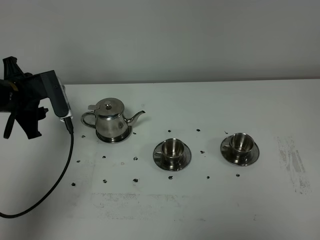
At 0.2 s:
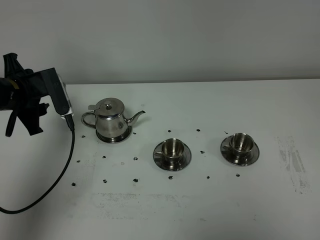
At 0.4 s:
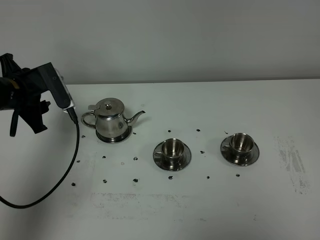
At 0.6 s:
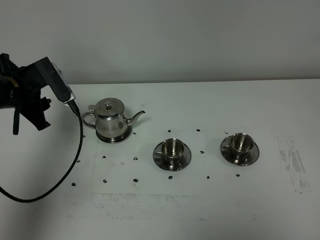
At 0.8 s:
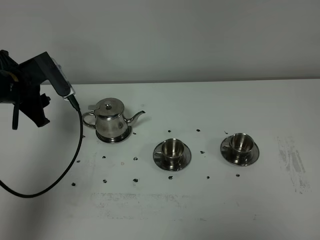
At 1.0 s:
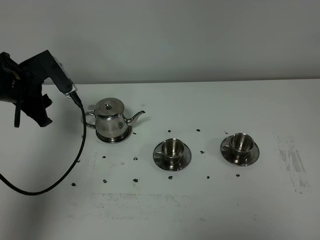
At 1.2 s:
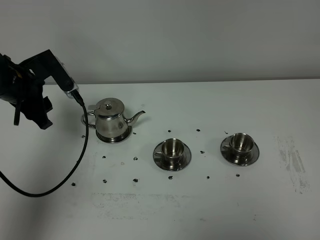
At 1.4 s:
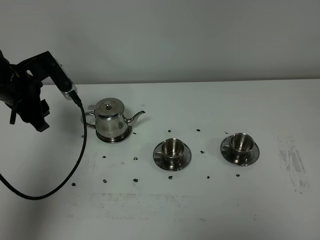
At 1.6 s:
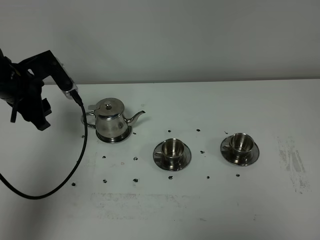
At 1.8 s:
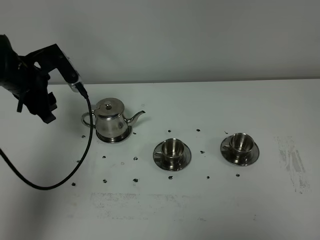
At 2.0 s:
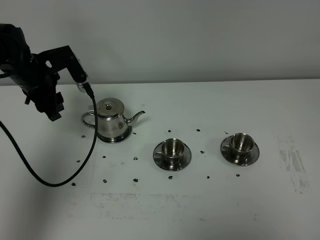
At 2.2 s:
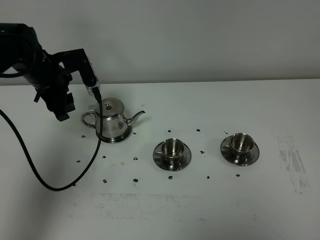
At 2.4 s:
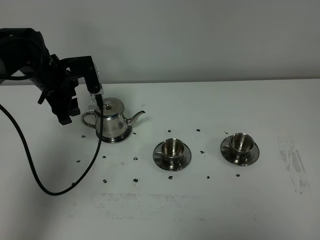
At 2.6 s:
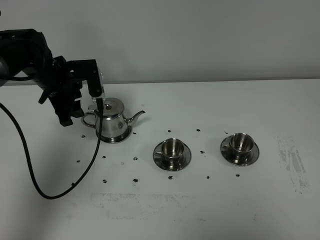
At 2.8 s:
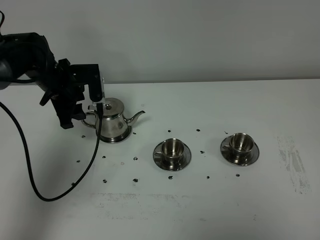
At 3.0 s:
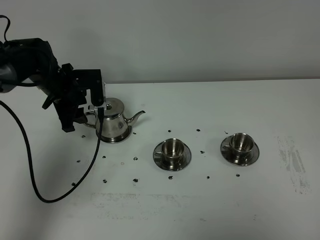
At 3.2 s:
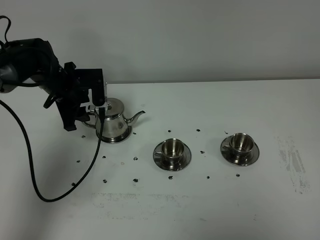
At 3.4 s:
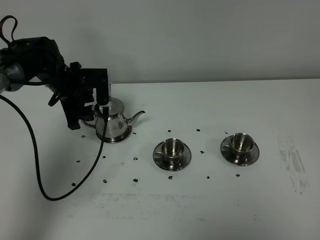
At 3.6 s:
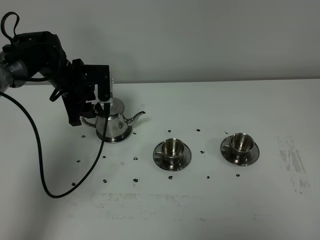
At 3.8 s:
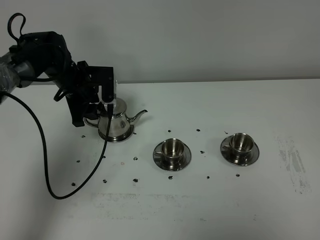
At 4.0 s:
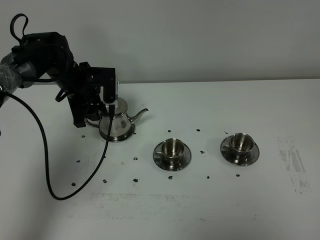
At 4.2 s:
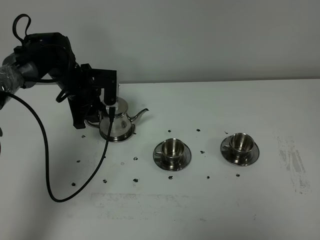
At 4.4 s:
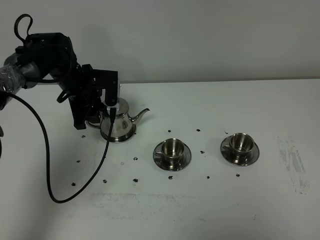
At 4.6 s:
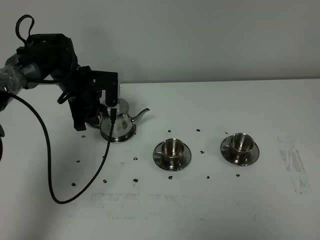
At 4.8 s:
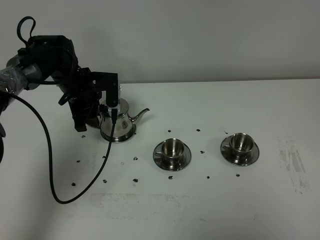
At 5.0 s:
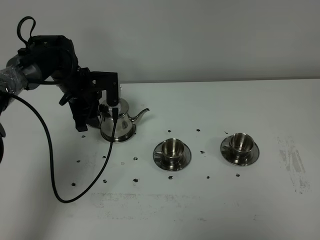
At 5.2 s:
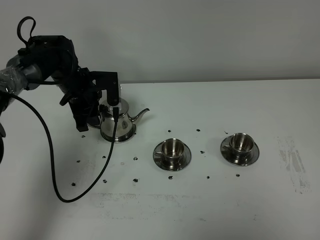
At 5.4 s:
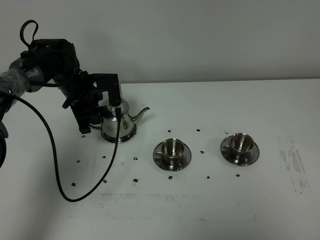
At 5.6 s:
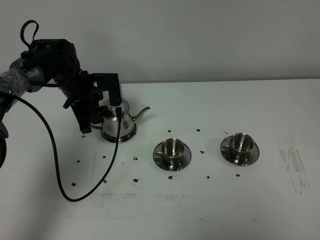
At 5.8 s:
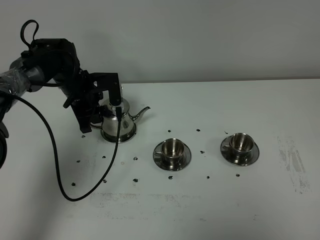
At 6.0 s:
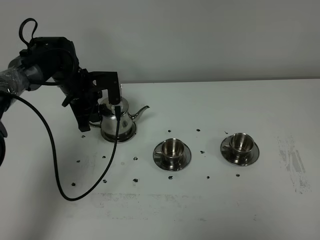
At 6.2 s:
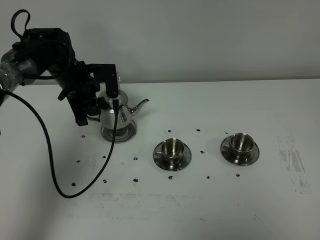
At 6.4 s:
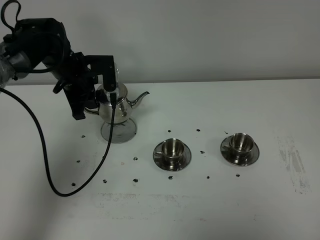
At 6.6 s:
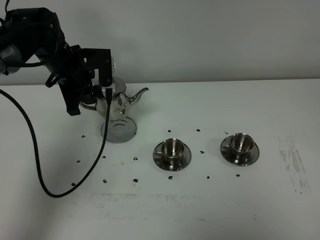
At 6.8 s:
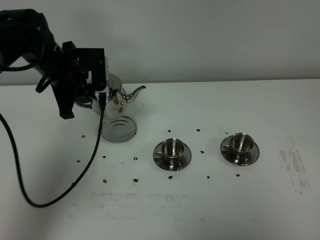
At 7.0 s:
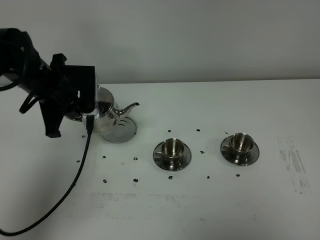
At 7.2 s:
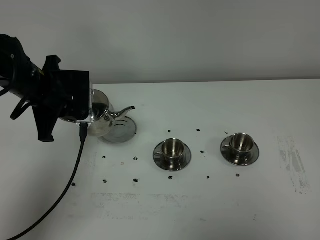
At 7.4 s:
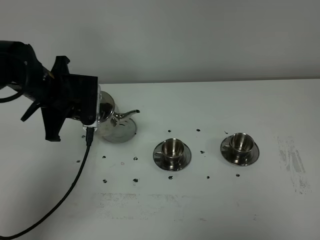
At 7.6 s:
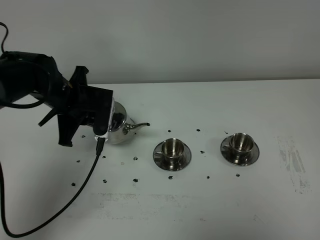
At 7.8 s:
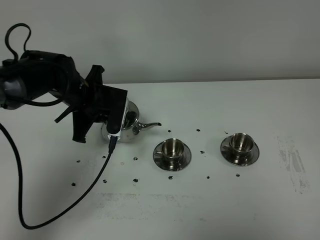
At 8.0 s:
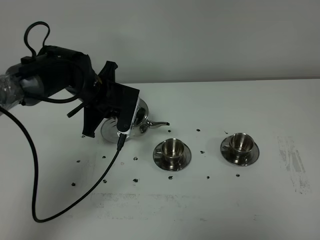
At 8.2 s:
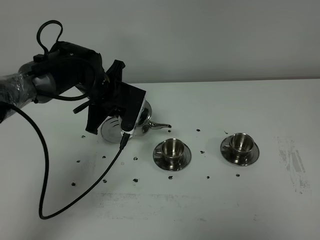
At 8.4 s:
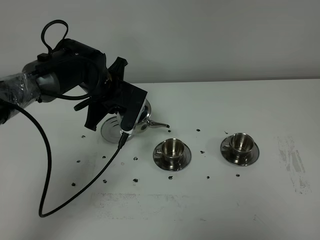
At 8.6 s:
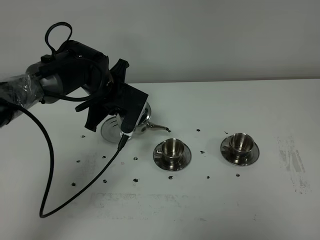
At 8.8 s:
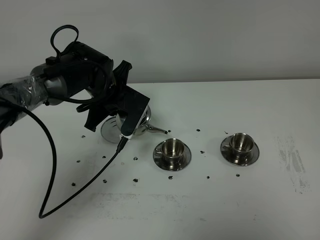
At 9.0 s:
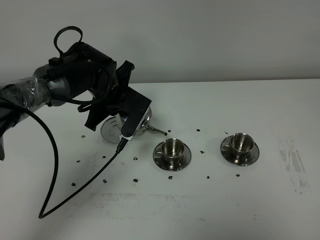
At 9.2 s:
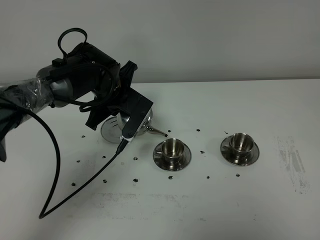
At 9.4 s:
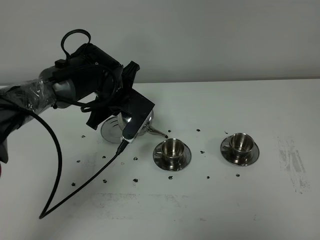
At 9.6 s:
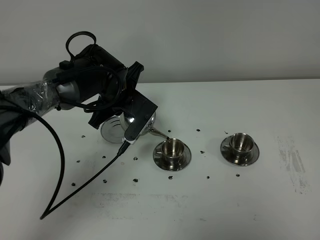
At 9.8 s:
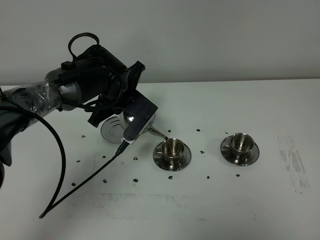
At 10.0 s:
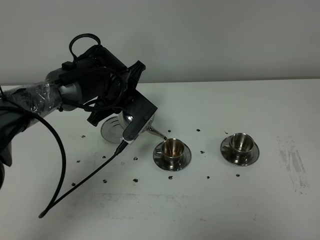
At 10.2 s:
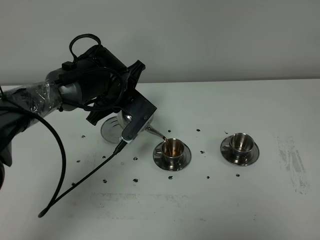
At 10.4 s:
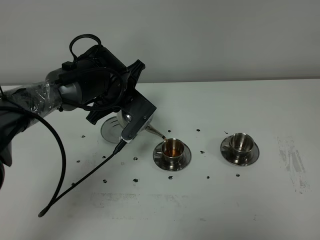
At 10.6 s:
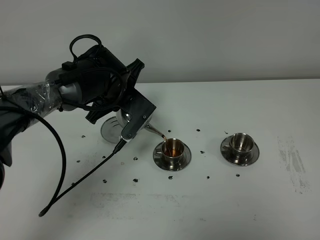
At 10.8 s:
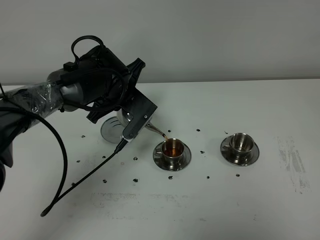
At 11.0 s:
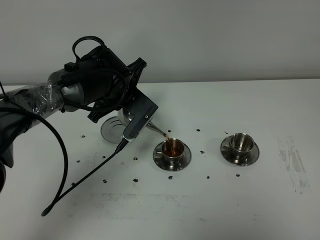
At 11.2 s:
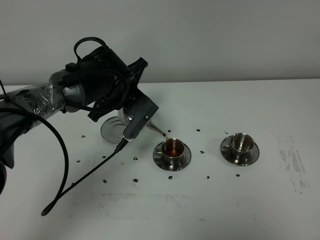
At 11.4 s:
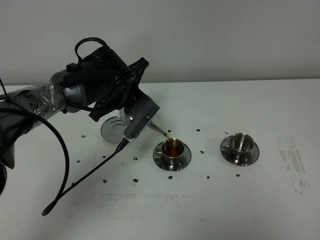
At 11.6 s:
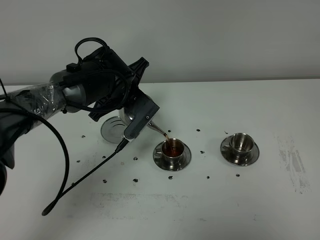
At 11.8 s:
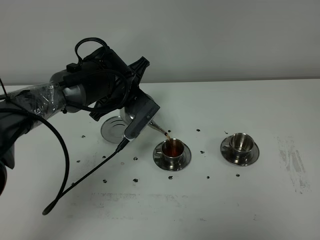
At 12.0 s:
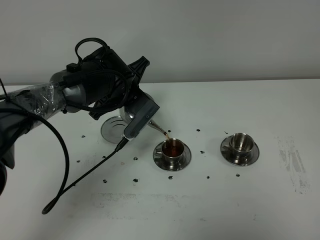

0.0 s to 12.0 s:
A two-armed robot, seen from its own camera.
Task of the whole recording: grasp the stainless steel teapot and pour the tea into the two stainless steel teacups one by one, put the stainless steel teapot back in its original place.
Step, 0.0 to 6.0 s: Pick up the teapot with the left gripper.
1.6 to 3.0 s: The left gripper travels forward and downward by approximately 10 cm.
3.0 to 4.4 s: There are only small adjustments of the grippers.
4.4 to 6.0 s: The left gripper closes its fingers.
6.0 to 7.6 s: The left gripper is displaced backward by roughly 10 cm.
7.6 to 9.0 s: The left gripper goes about 5 cm to the right.
9.0 to 10.4 s: There are only small adjustments of the grippers.
10.4 to 12.0 s: Neither gripper changes place.

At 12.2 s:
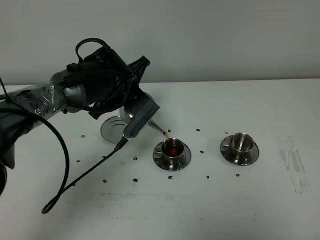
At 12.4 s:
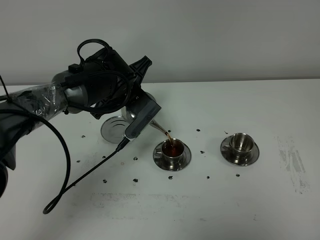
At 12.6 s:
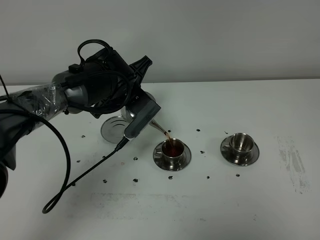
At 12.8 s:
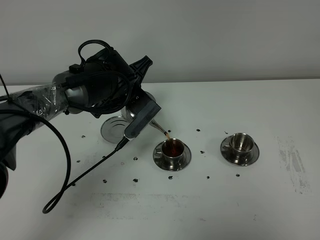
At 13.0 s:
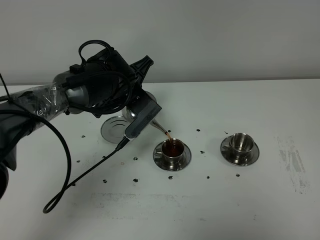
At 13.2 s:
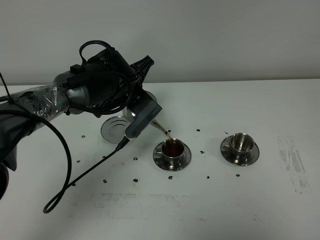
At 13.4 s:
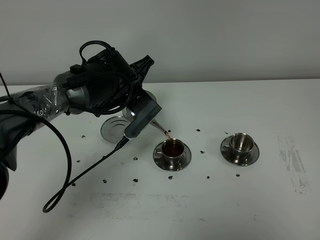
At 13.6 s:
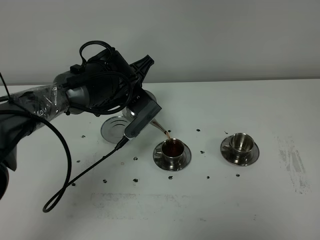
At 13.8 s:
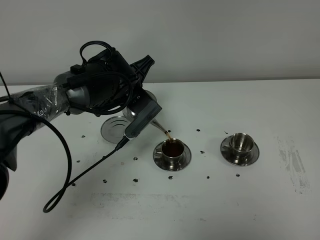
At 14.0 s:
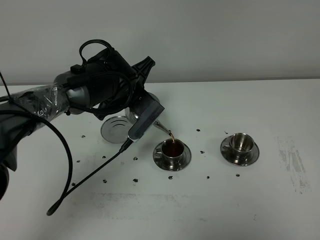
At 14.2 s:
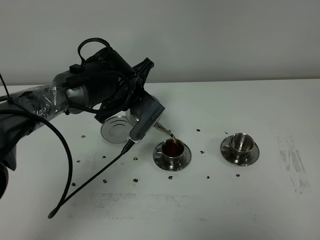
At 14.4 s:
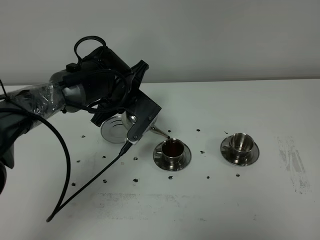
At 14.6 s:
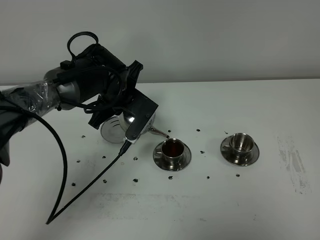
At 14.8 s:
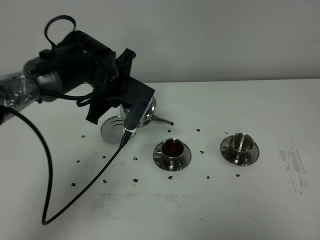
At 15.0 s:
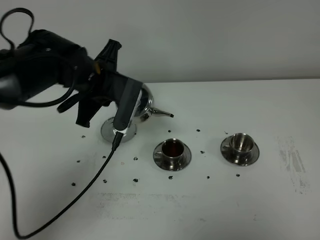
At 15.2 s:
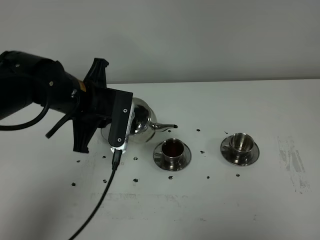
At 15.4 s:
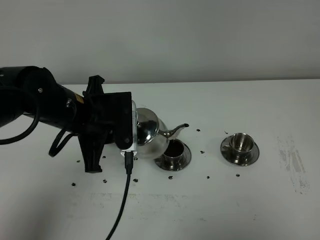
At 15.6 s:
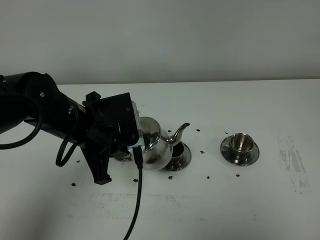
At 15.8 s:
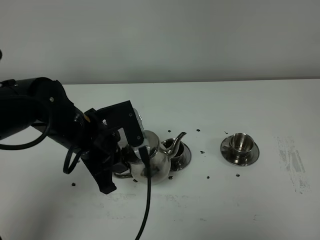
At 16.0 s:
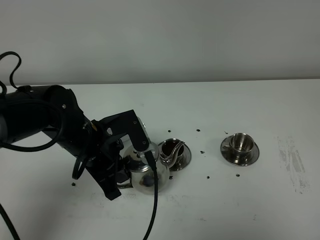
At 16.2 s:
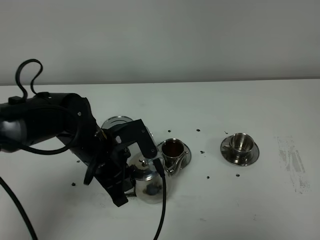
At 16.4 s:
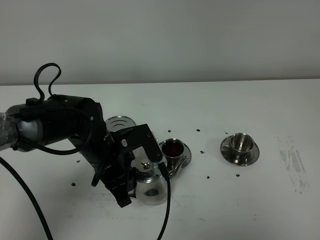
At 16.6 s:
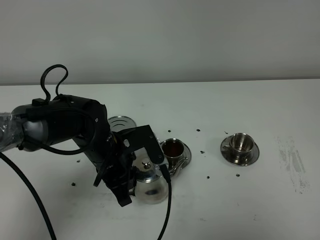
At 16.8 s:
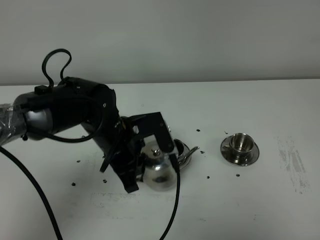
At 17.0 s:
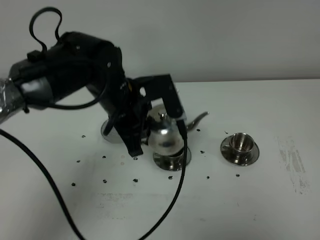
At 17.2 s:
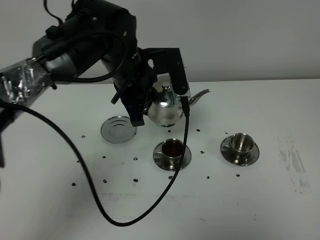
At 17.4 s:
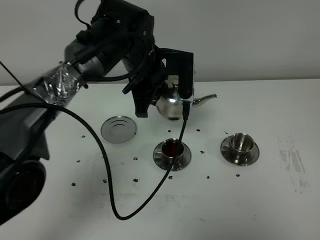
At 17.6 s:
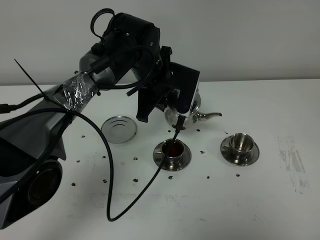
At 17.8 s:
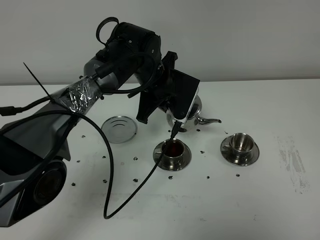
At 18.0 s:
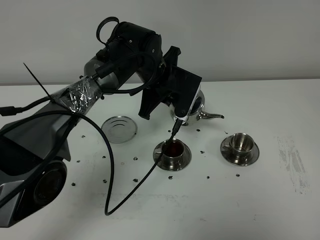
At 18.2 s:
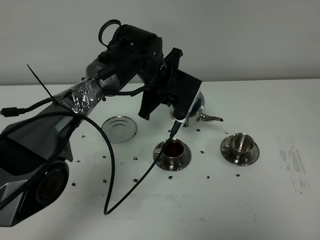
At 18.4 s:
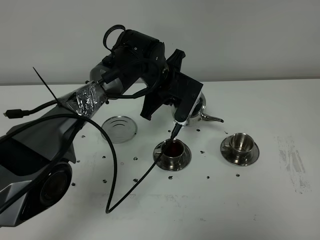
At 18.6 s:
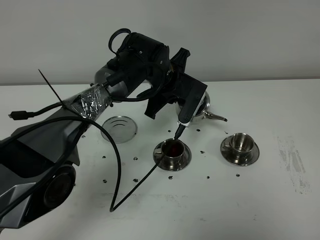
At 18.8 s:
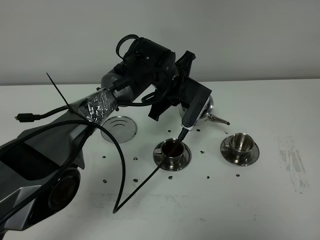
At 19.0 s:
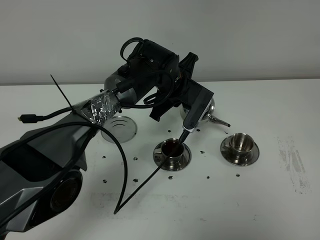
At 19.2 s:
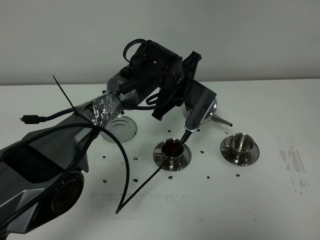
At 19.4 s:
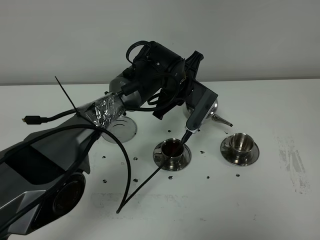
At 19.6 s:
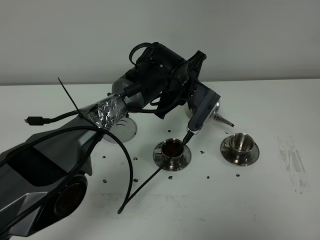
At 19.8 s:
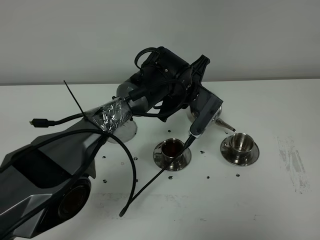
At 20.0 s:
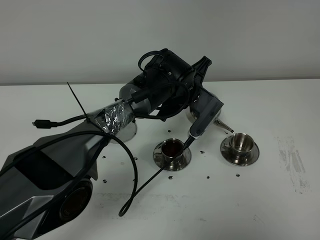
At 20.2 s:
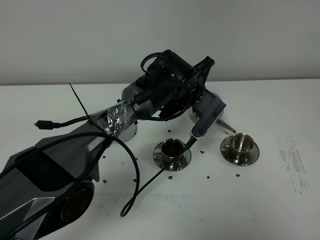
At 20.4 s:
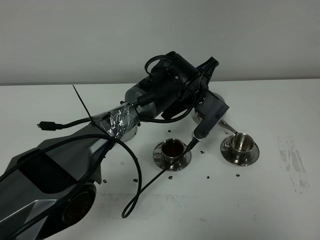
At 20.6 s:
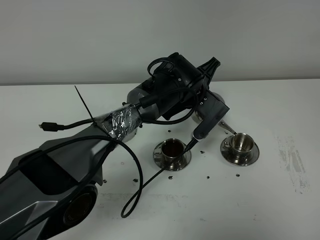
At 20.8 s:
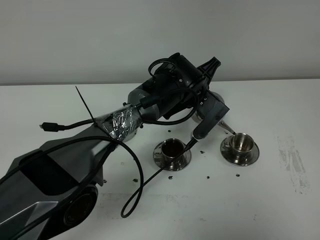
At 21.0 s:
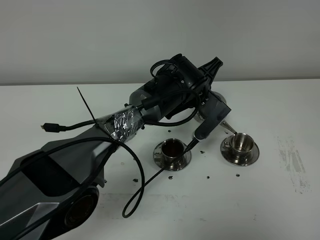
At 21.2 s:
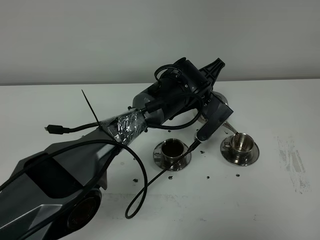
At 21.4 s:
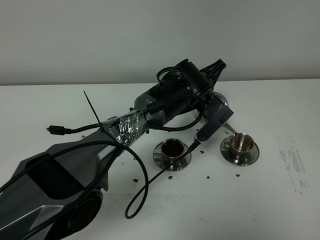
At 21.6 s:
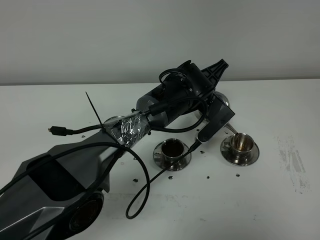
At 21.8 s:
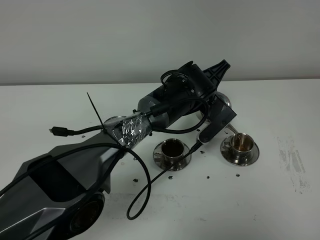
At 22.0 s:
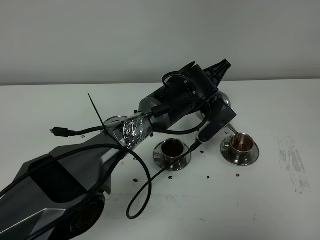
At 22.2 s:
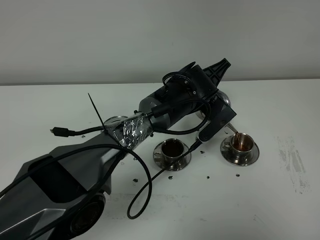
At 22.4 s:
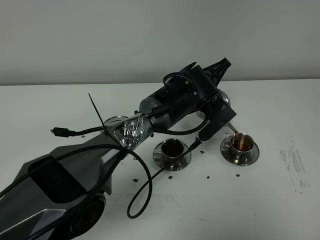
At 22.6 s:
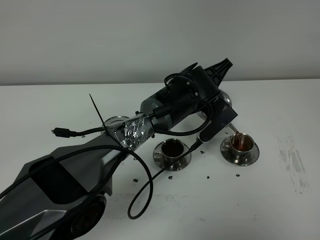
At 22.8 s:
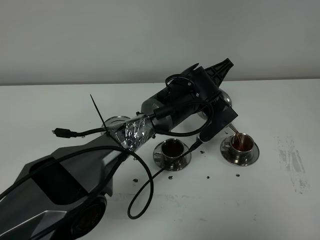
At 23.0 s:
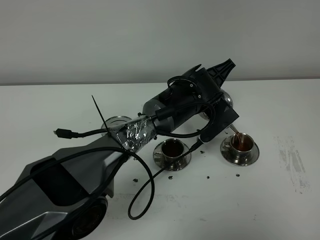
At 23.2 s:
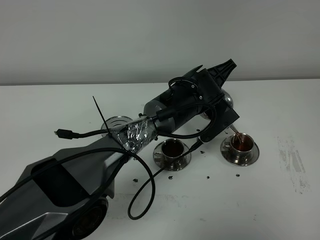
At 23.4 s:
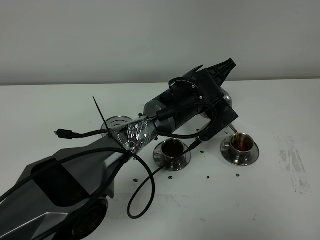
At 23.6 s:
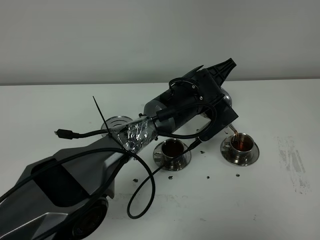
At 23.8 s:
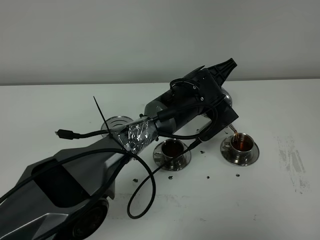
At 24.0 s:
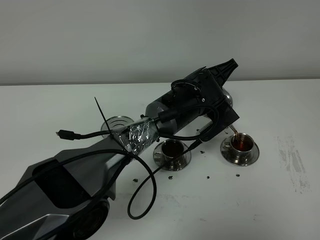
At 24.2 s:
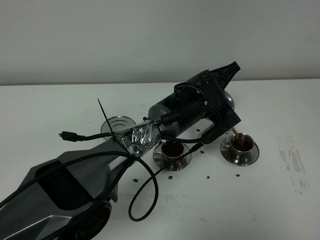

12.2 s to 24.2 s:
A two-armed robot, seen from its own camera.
Task of the whole recording: grasp the stainless steel teapot and pour the tea into the two stainless steel teacups one by one, put the stainless steel teapot back in its original place.
12.2 to 13.8 s: Neither gripper changes place.
13.8 to 15.2 s: The left gripper travels backward and to the left by roughly 10 cm.
15.2 to 16.6 s: The left gripper moves downward, roughly 10 cm.
16.6 to 18.2 s: The left gripper is displaced forward and to the right by roughly 15 cm.
18.2 to 19.8 s: The left gripper changes place by approximately 5 cm.
19.8 to 22.6 s: The grippers stay close to where they were, moving slightly.
22.6 to 24.2 s: The grippers make only small movements.
